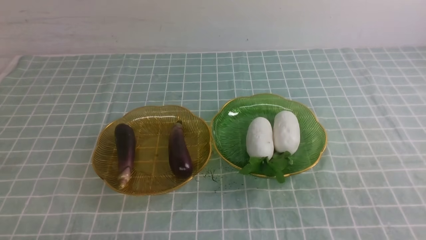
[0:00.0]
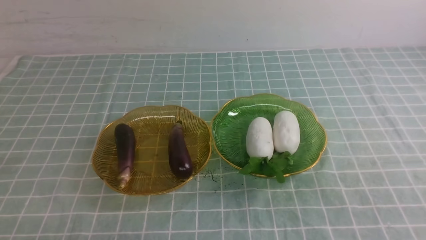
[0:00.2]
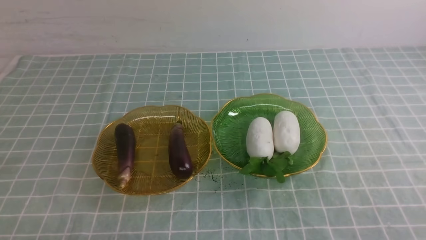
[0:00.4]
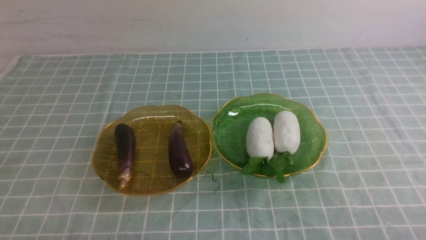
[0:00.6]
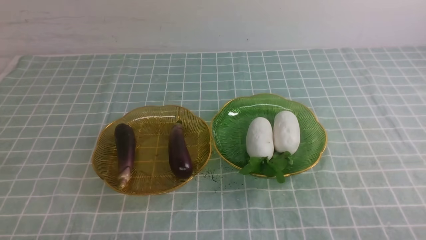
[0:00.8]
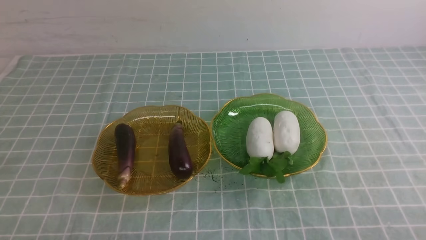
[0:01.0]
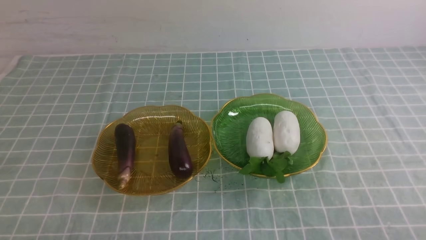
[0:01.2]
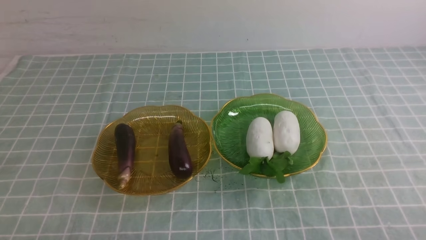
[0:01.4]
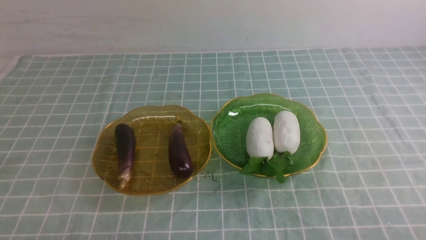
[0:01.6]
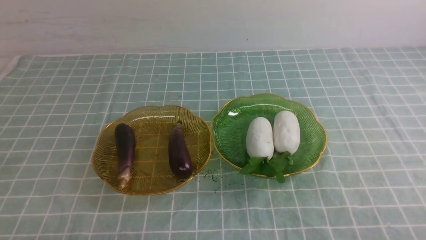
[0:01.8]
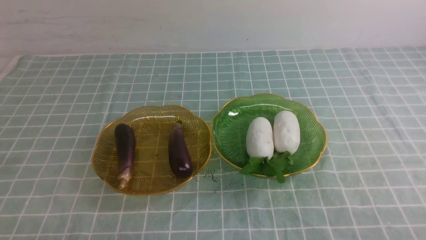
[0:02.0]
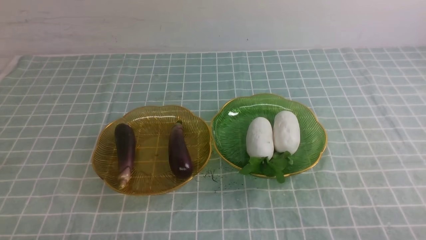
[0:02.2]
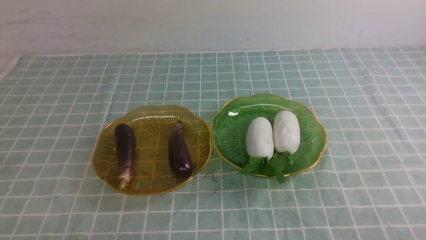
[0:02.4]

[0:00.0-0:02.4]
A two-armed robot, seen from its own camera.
0:01.2 to 0:02.4: Both grippers stay put.
